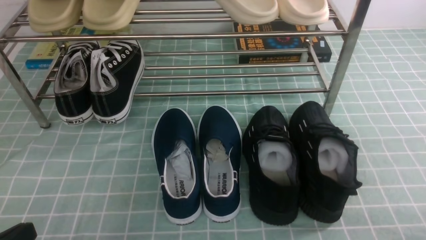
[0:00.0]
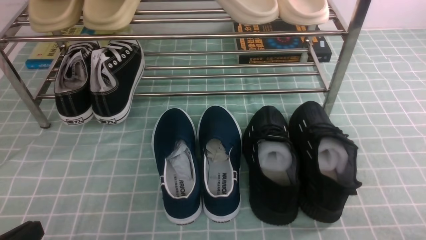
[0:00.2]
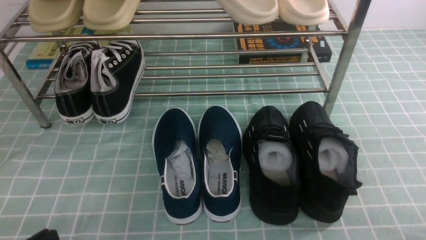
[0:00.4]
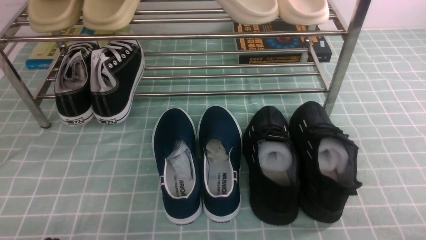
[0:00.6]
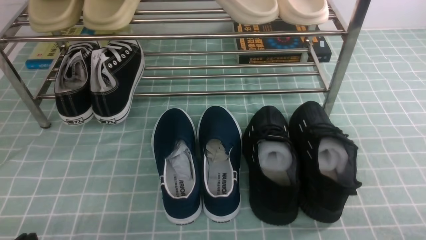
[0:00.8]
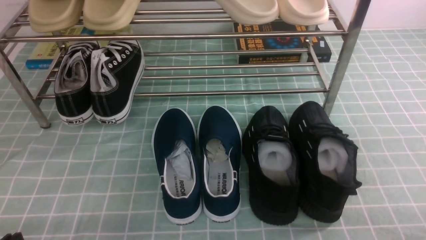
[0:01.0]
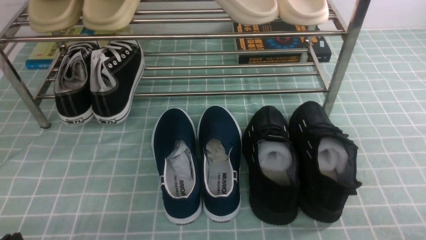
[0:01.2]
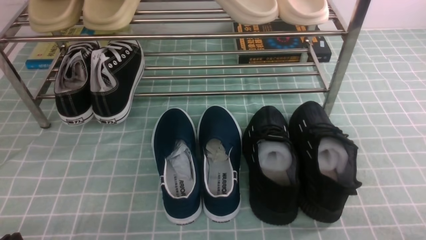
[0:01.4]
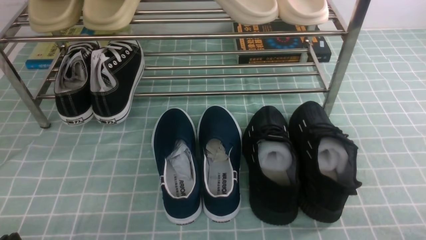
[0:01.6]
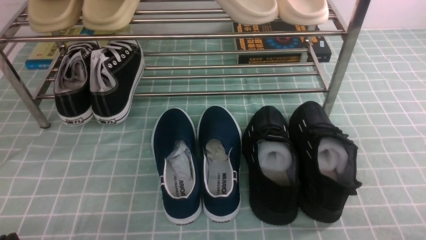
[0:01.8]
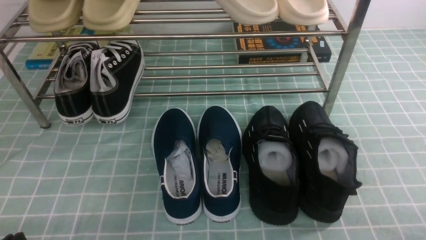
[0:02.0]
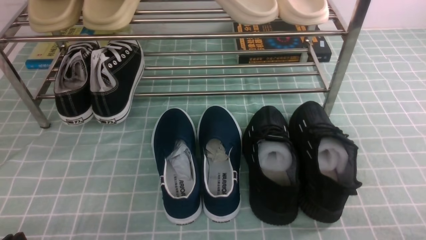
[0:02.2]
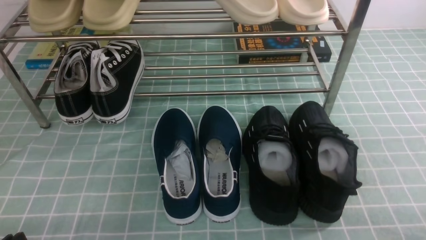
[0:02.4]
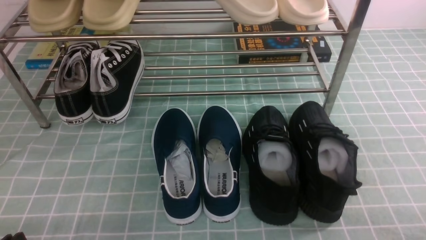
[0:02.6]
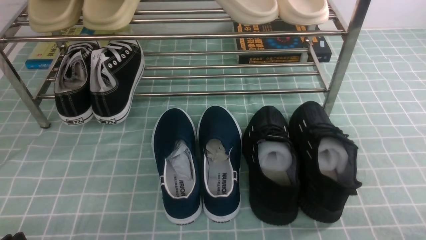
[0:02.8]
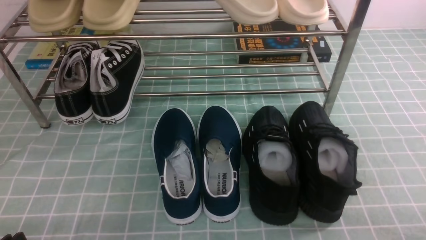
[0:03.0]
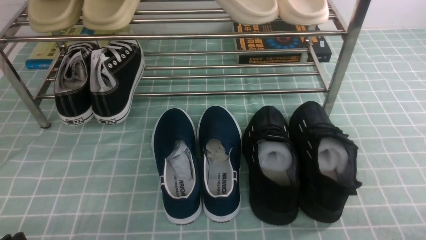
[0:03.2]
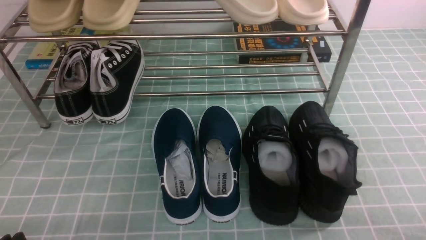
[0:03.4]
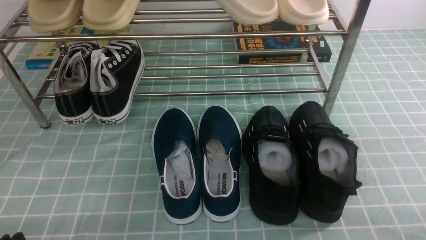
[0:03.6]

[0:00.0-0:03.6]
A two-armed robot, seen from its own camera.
0:01.8 to 0:03.6: Both grippers stay put.

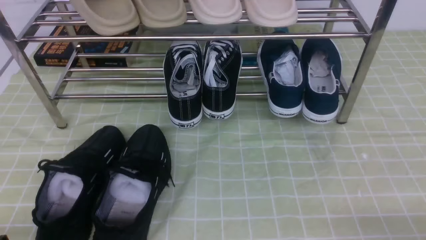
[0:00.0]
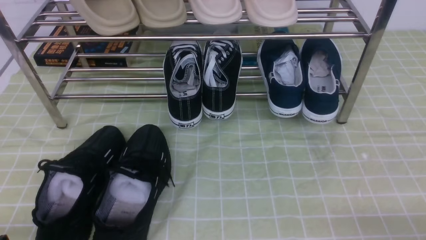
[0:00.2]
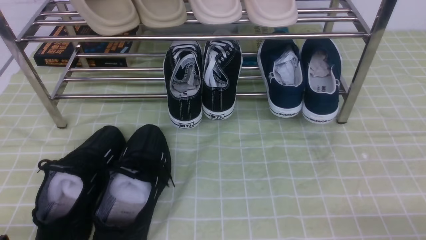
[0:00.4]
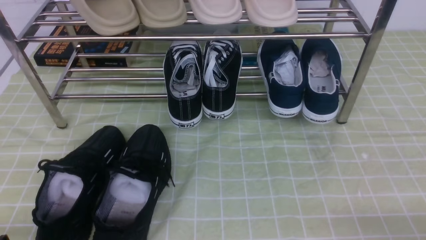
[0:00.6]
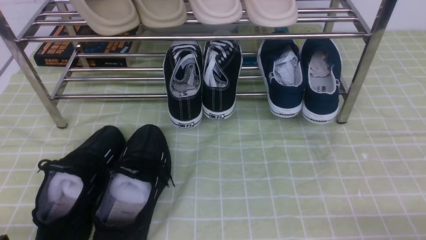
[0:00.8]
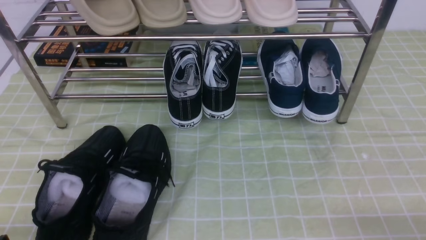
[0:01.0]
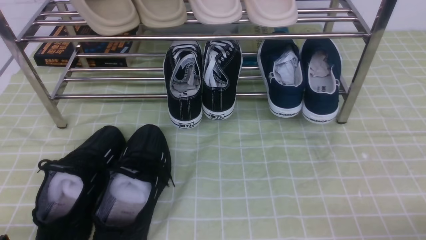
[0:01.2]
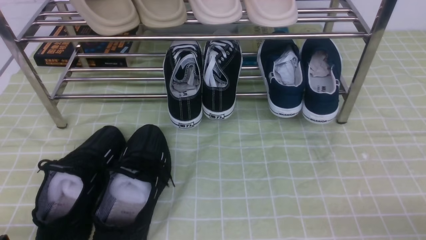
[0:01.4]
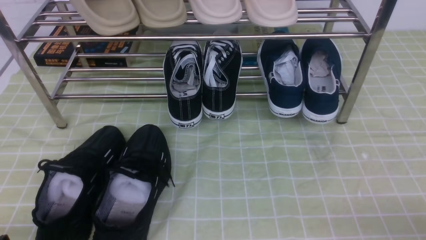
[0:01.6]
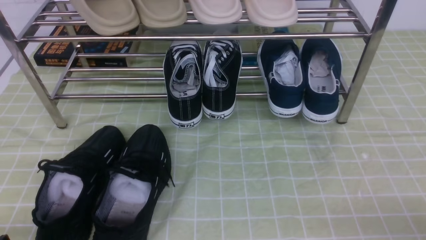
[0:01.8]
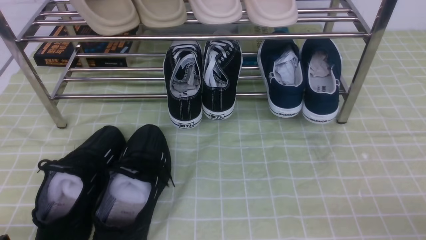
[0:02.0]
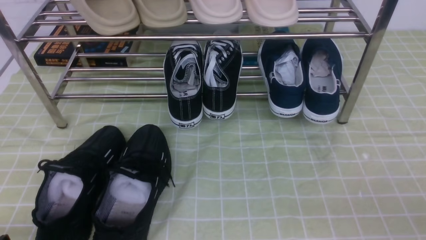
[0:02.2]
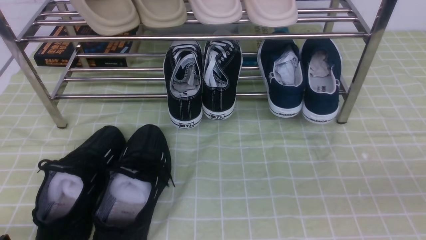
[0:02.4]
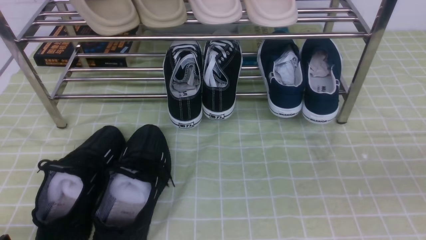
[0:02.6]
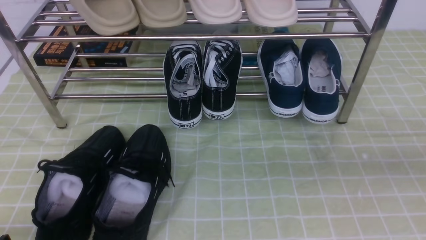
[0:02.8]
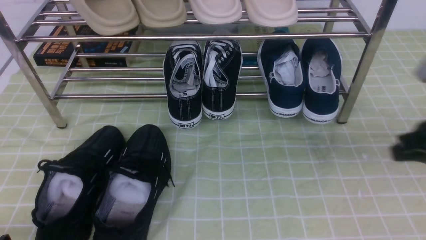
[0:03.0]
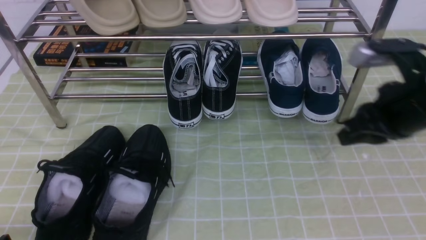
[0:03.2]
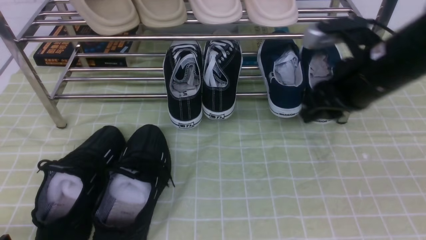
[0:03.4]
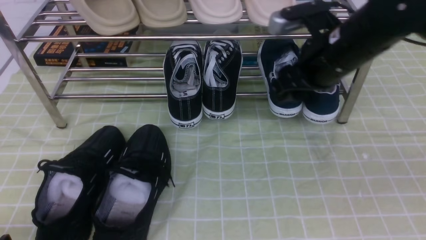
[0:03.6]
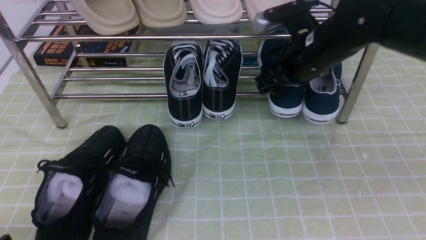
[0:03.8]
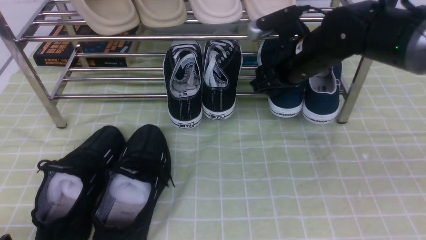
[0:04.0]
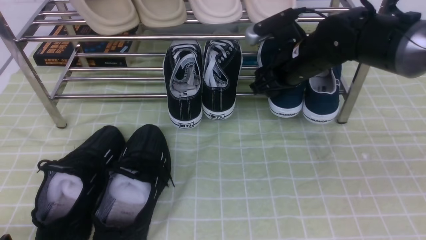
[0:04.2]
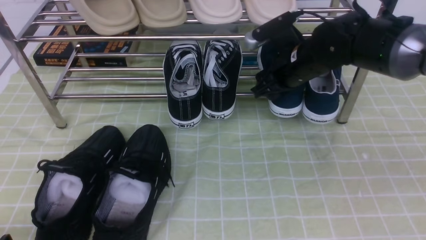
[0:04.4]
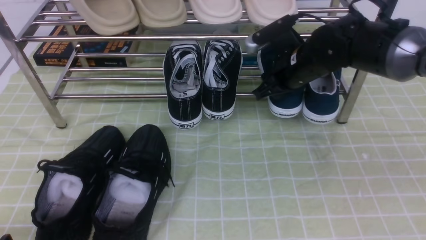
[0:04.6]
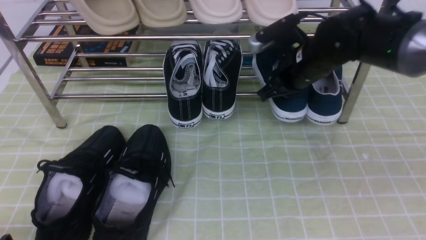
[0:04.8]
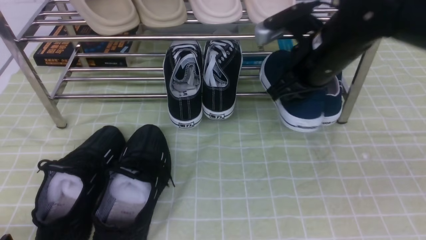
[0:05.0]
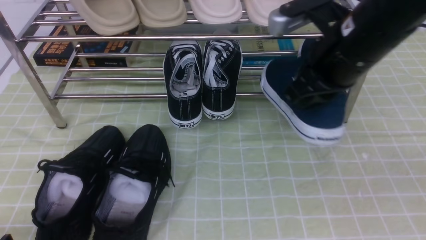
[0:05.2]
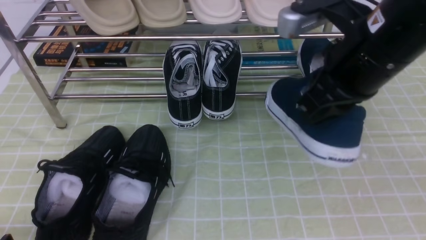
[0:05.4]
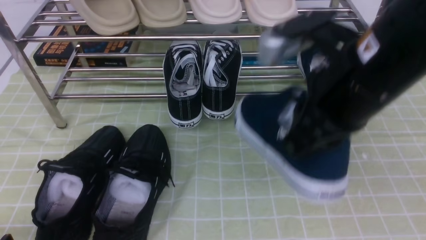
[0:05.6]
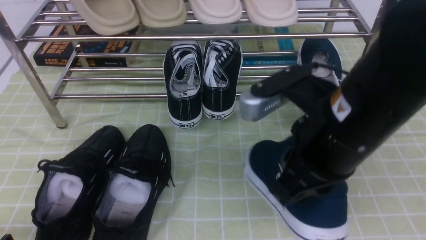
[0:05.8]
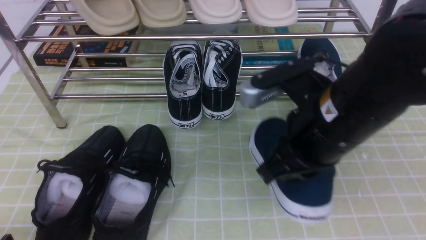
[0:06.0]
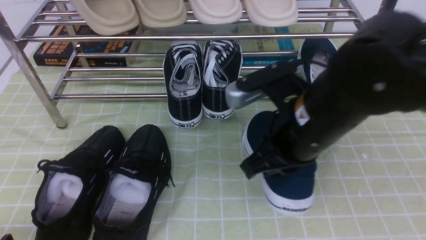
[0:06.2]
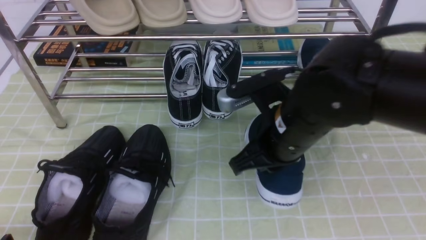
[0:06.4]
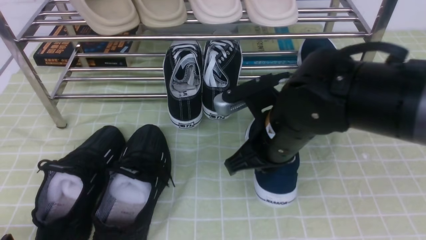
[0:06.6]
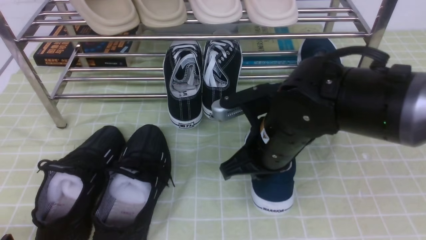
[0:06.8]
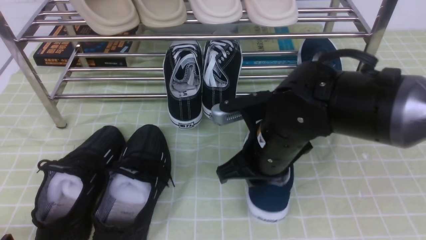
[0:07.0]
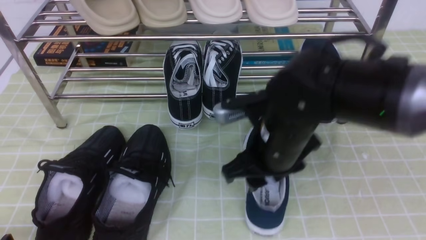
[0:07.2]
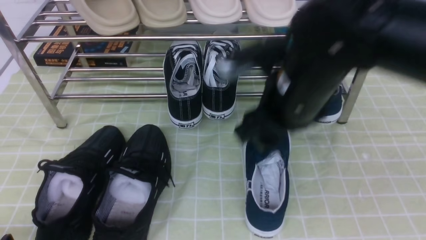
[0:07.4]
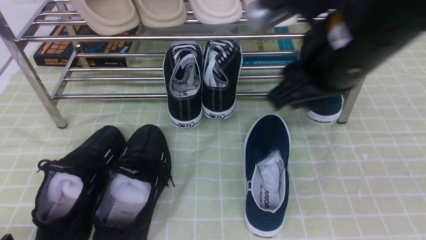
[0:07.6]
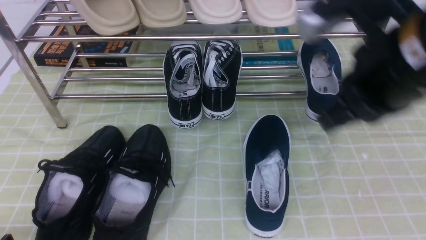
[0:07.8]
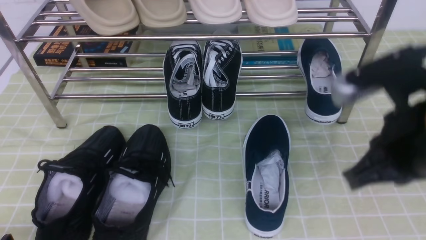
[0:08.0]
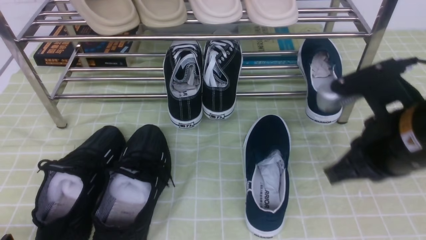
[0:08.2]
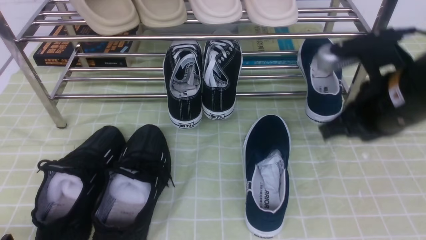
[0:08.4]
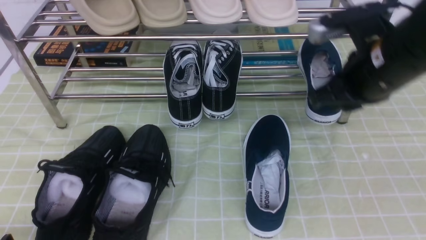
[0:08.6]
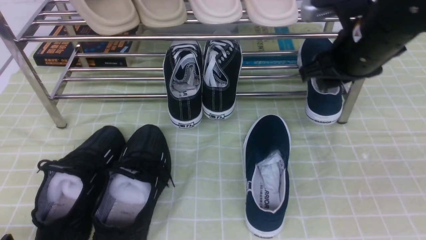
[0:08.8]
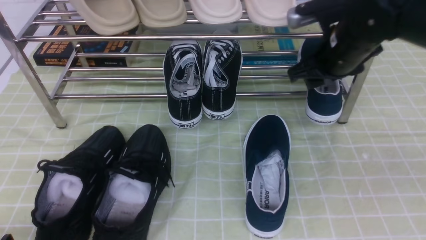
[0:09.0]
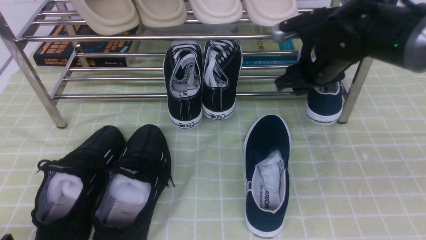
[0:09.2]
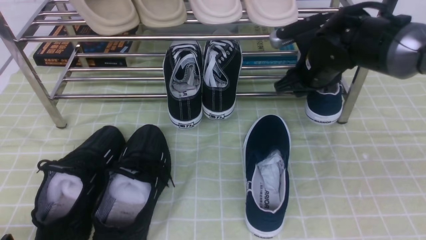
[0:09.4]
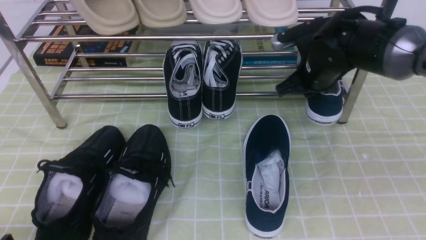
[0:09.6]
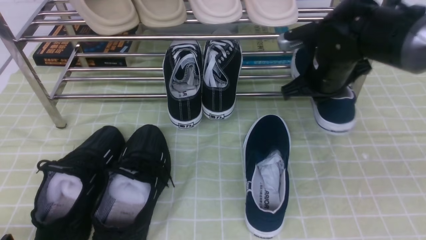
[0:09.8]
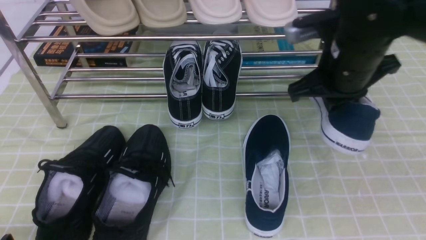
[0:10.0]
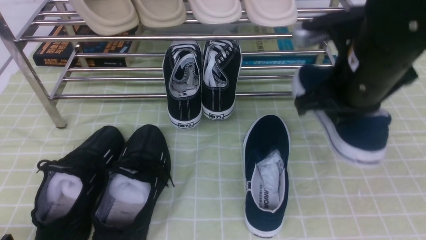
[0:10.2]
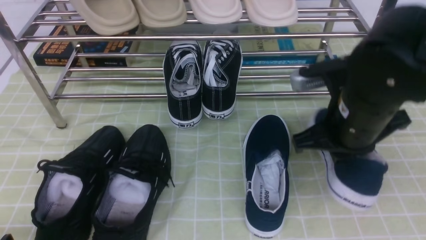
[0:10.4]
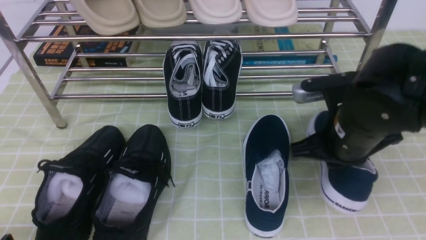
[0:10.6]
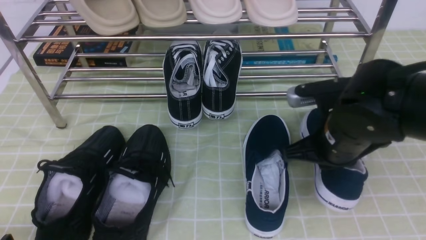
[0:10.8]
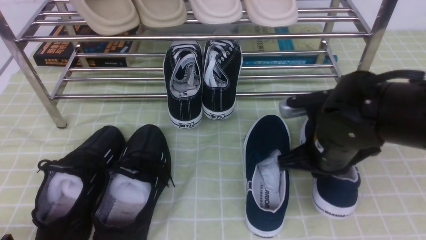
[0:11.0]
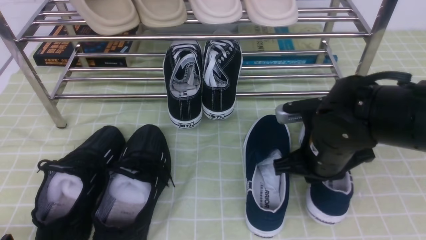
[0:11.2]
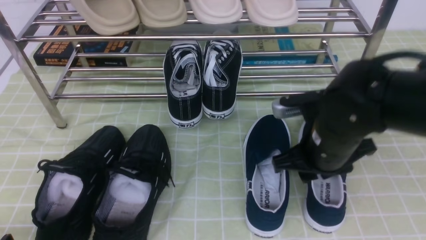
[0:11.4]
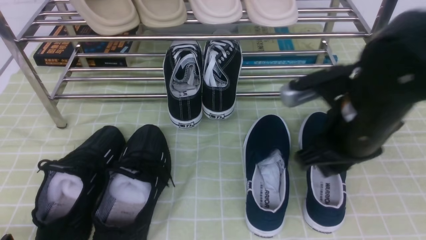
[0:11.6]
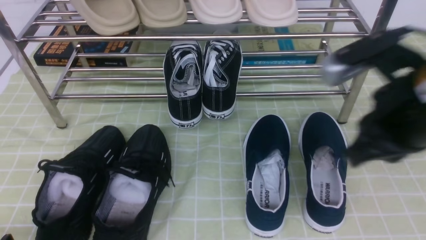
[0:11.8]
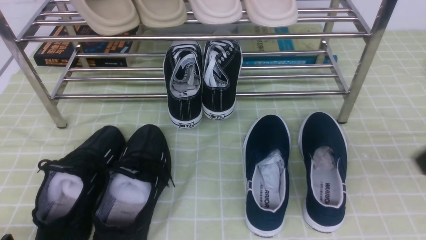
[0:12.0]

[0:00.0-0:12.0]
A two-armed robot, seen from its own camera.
Step, 0:00.0 to 0:04.6: use the right arm to clamp a shoe on the right side of the shoe rack.
Step, 0:04.8 to 0:07.4: use the right arm to take out the clamped shoe from the shoe rack and put it down.
Step, 0:07.6 to 0:09.4: use the right arm to clamp a shoe on the right side of the shoe rack.
Step, 0:09.6 to 0:11.6: use the right arm to take out the clamped shoe from the shoe rack and put it down.
0:01.6 to 0:03.0: The right gripper shifts some 20 cm forward and upward, and closes.
0:03.0 to 0:04.4: The right gripper moves forward and to the left, some 25 cm, and opens.
0:04.4 to 0:06.0: The right gripper shifts some 20 cm backward, and closes.
0:06.0 to 0:07.6: The right gripper is displaced upward by approximately 5 cm, and opens its fingers.
0:07.6 to 0:09.0: The right gripper heads forward and downward, covering roughly 15 cm, and closes, then opens again.
0:09.0 to 0:10.4: The right gripper is displaced backward by some 10 cm, and closes.
0:10.4 to 0:12.0: The right gripper goes some 20 cm backward, upward and to the right, and opens, then closes again.

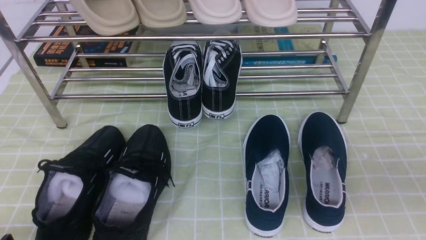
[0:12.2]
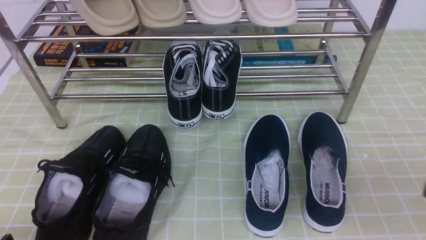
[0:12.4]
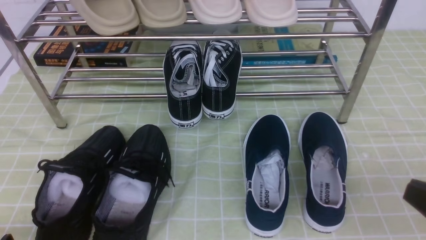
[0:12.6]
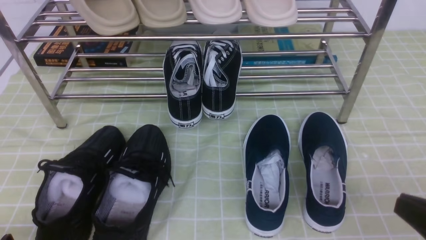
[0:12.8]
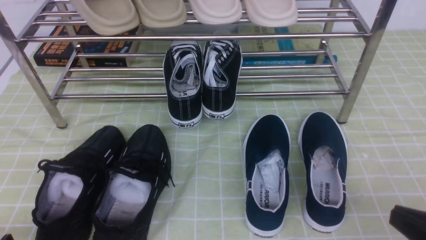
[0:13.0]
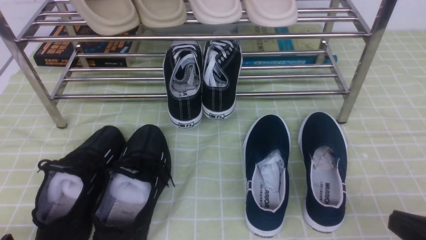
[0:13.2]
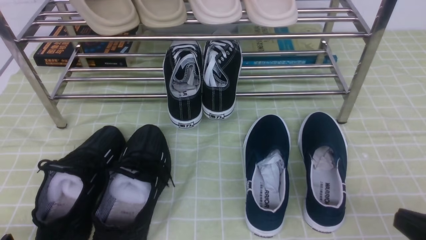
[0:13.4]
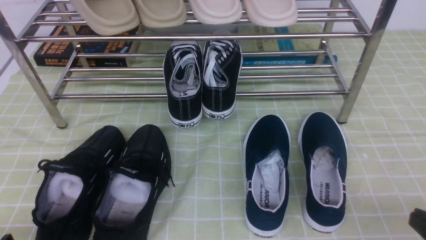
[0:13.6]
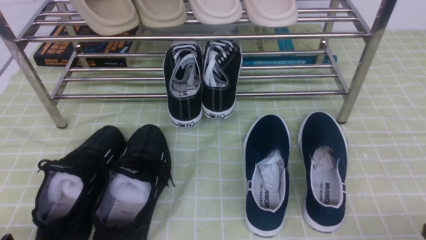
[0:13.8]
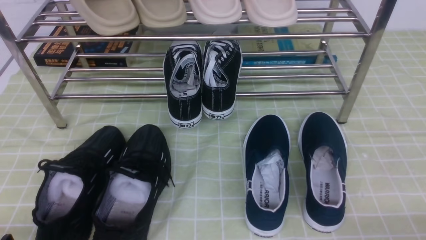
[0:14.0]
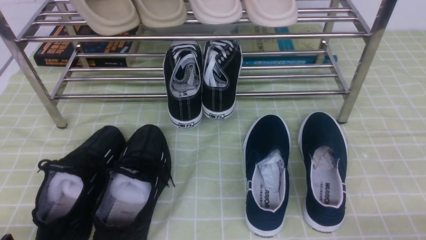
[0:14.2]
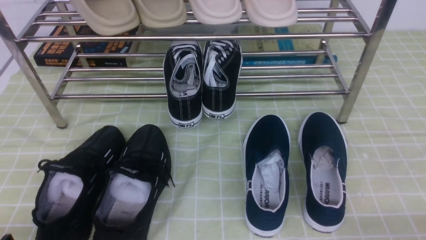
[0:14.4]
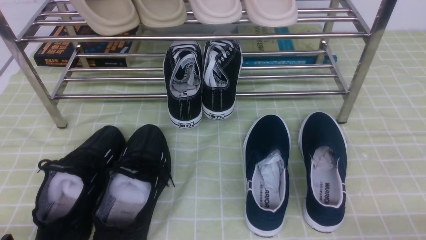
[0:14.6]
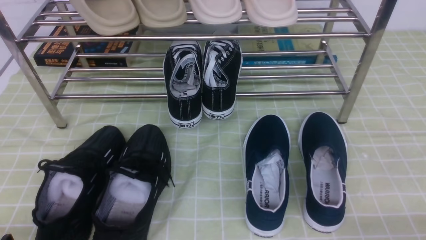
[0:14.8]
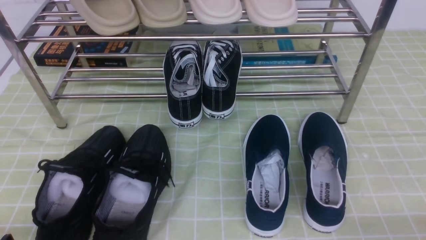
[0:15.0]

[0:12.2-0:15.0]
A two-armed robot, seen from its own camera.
0:12.2 to 0:13.6: The right gripper heads downward, covering some 15 cm.
